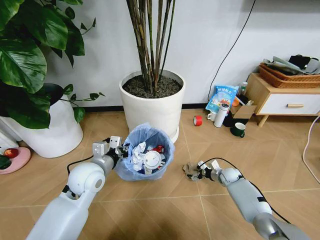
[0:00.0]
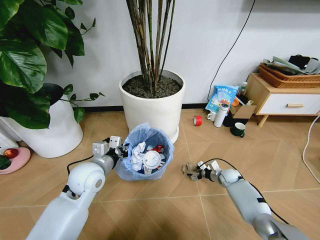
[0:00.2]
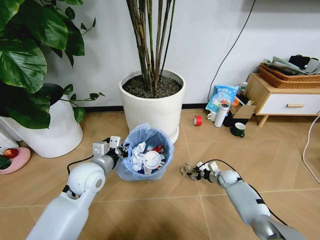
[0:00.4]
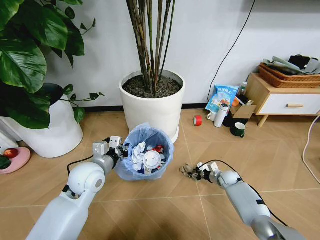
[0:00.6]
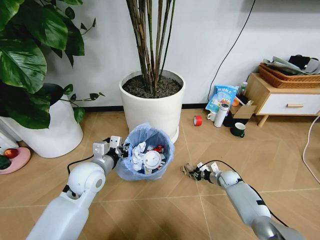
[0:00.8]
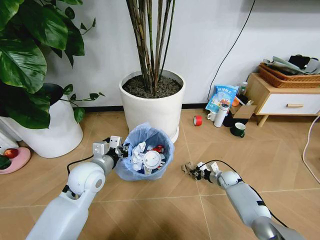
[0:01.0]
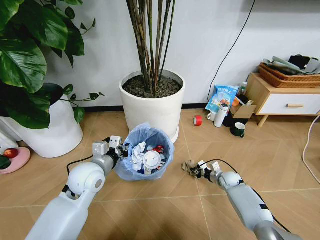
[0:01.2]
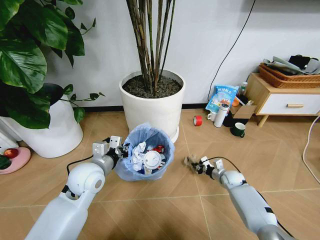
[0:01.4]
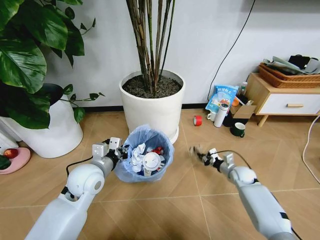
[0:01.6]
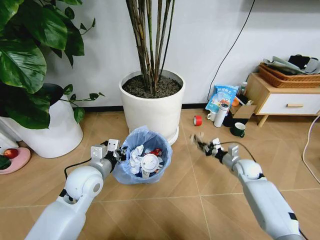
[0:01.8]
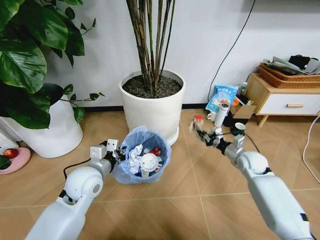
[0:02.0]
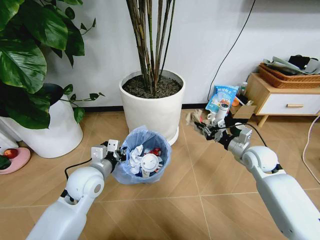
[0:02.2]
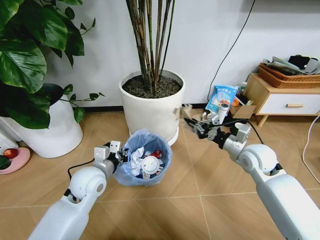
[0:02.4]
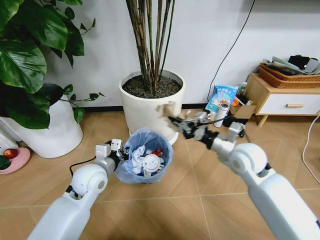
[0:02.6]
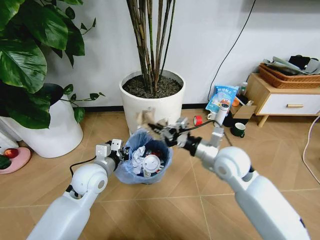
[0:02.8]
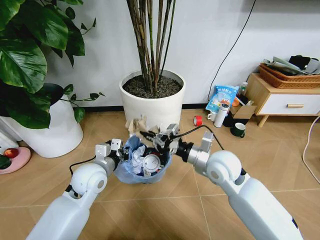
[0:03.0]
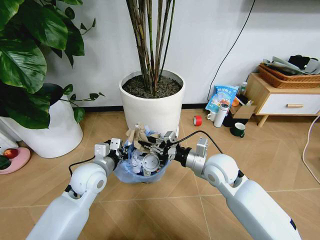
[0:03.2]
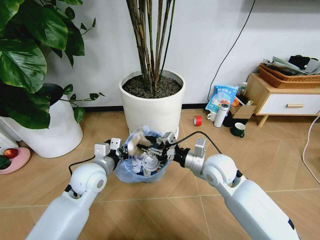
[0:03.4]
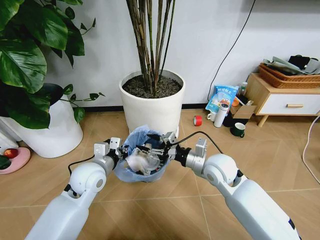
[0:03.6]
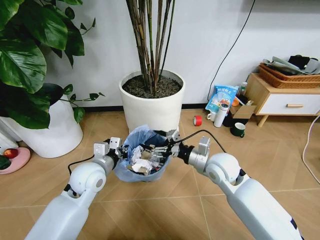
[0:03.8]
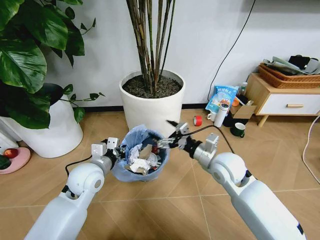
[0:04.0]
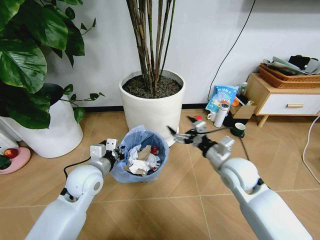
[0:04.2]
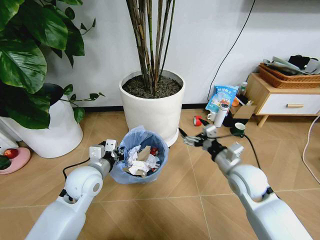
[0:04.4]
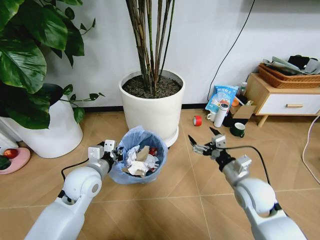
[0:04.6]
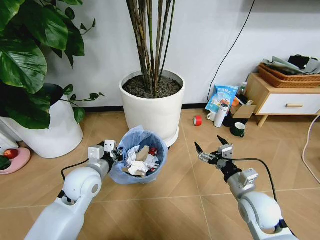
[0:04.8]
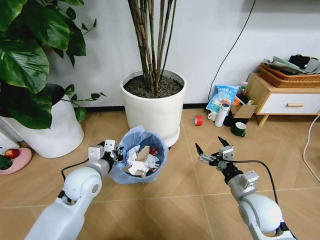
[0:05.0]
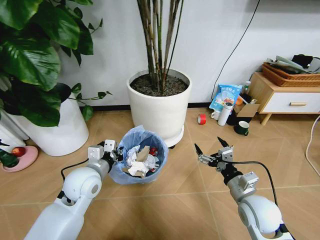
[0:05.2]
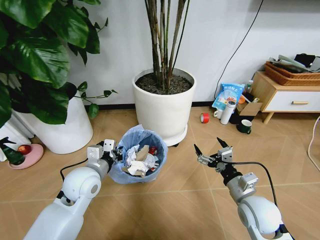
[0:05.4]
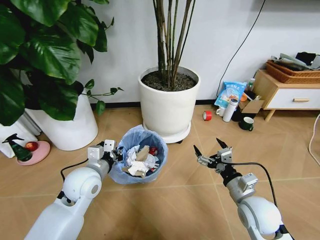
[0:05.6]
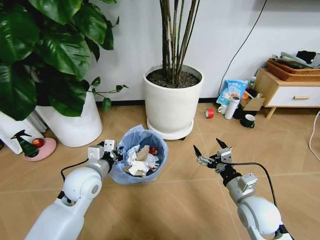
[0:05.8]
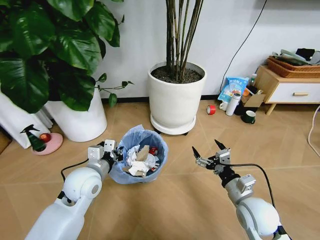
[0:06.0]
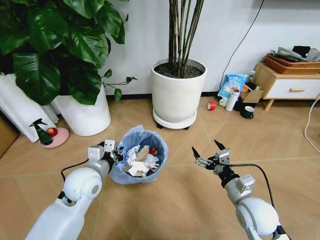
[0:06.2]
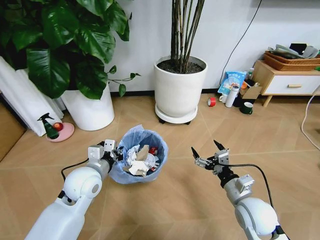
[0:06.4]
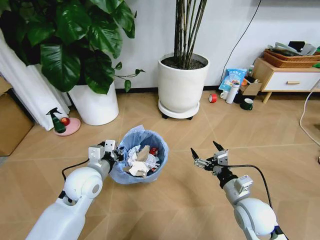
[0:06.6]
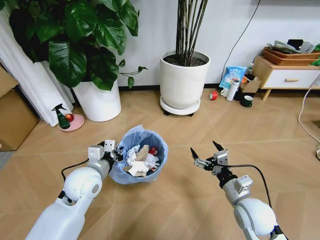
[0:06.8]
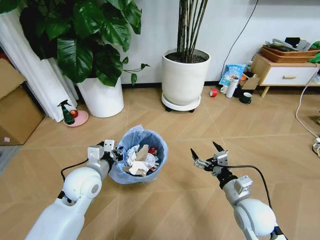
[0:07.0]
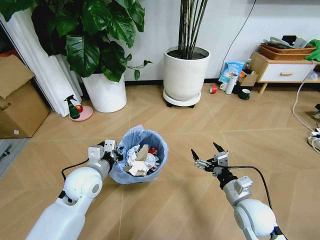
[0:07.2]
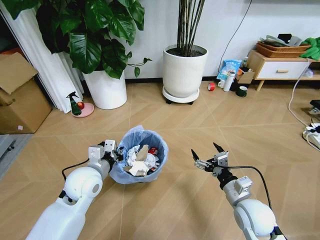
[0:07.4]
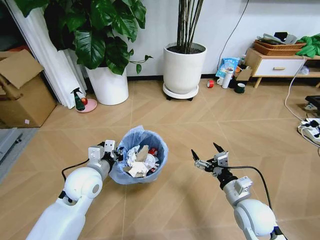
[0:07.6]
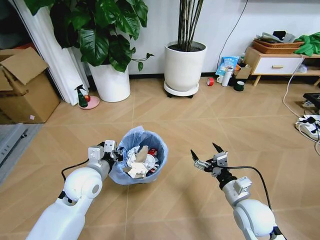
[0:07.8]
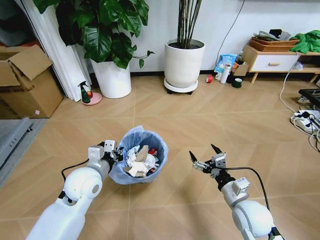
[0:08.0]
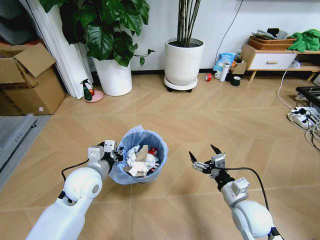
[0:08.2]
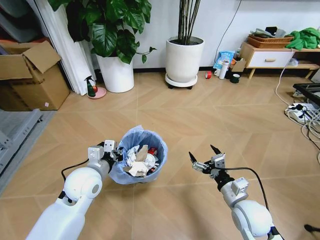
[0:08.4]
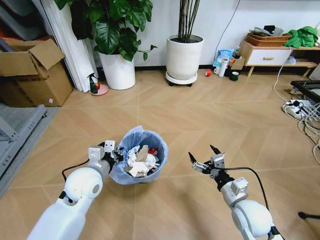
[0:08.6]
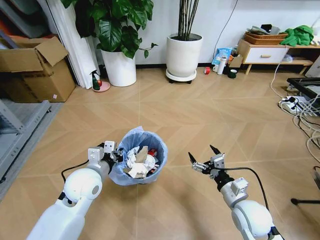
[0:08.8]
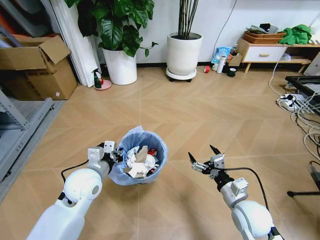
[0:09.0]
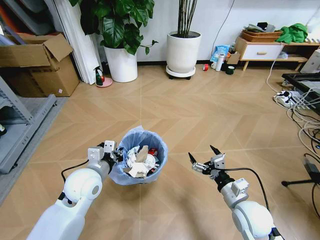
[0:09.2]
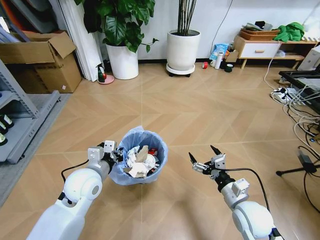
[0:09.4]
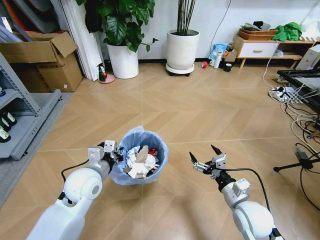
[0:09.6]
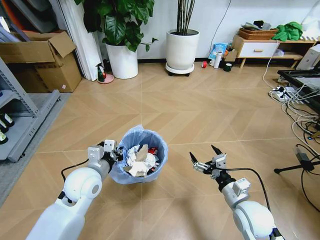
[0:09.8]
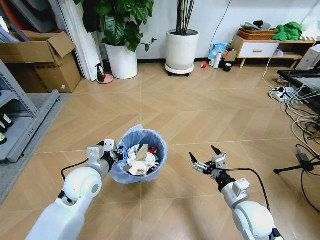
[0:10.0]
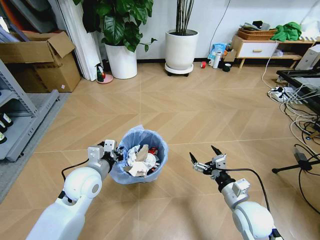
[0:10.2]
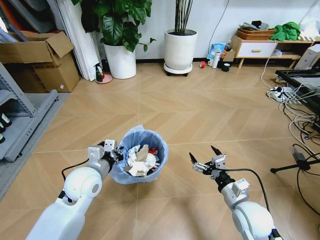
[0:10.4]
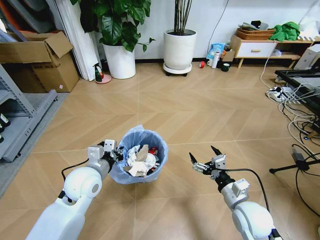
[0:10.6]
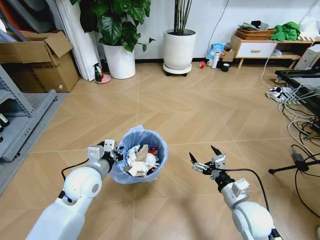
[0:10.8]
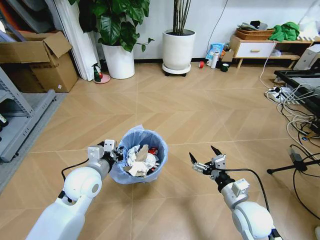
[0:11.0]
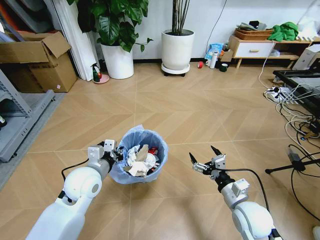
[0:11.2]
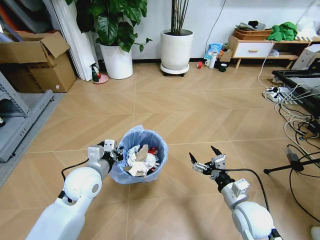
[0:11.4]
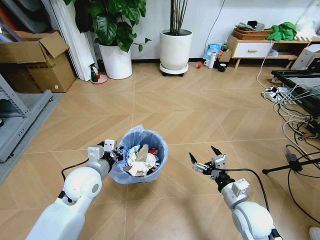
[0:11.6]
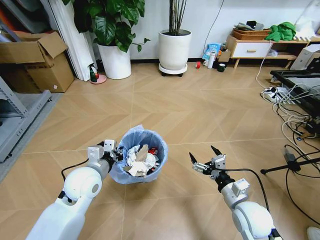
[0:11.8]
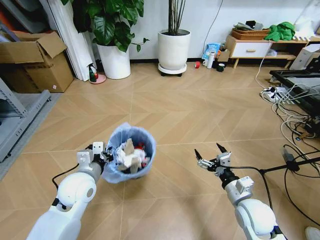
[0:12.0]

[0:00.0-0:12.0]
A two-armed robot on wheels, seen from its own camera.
Task of the whole recording: Pick up the trash bin and place the garbage on the floor into it.
0:00.0 to 0:01.6: The right gripper moves upward, some 5 cm, and closes its fingers.
0:01.6 to 0:03.0: The right gripper goes about 30 cm upward and to the left.
0:03.0 to 0:04.4: The right gripper goes approximately 10 cm to the right, and opens up.
0:04.4 to 0:06.0: The right gripper moves backward, approximately 5 cm.

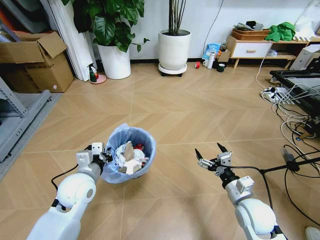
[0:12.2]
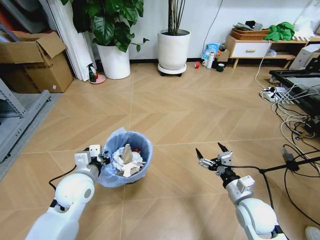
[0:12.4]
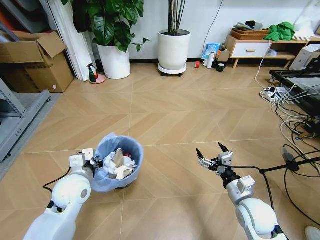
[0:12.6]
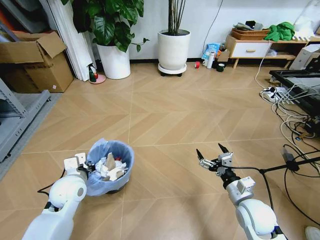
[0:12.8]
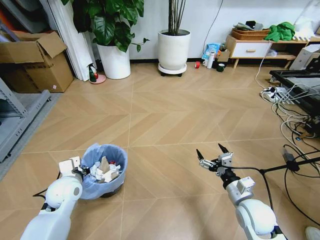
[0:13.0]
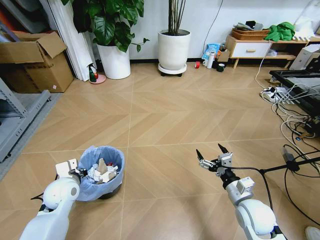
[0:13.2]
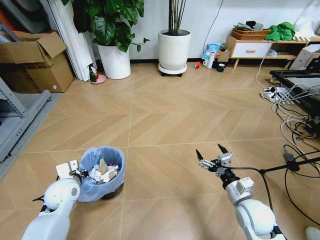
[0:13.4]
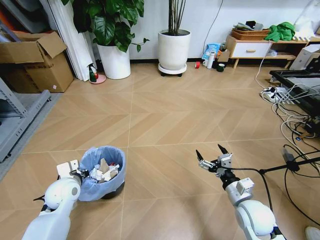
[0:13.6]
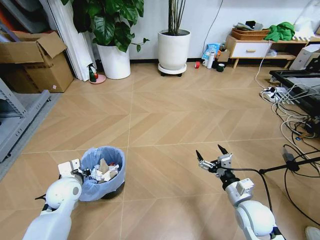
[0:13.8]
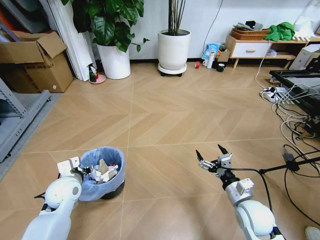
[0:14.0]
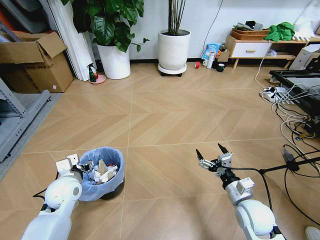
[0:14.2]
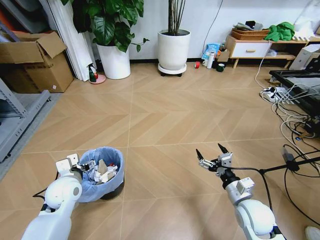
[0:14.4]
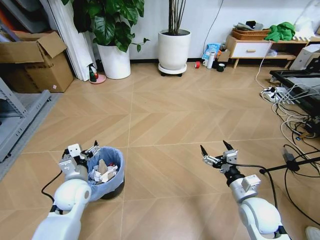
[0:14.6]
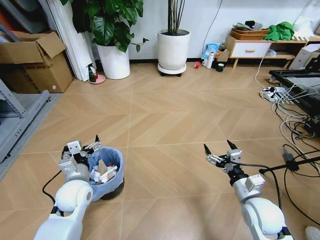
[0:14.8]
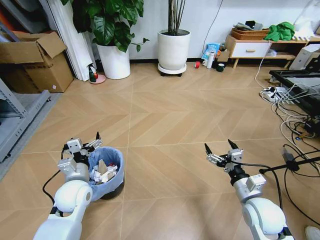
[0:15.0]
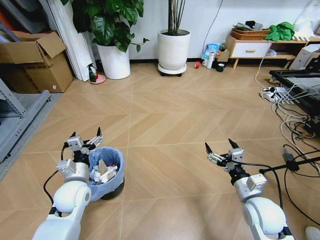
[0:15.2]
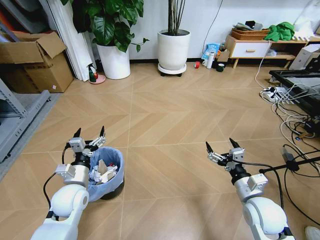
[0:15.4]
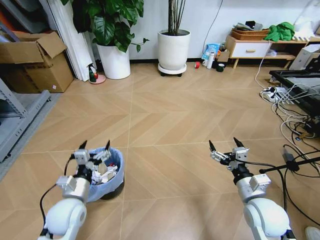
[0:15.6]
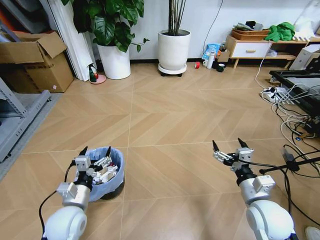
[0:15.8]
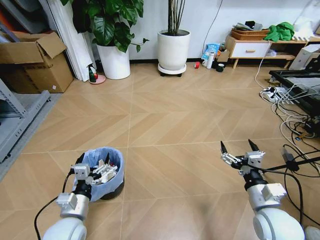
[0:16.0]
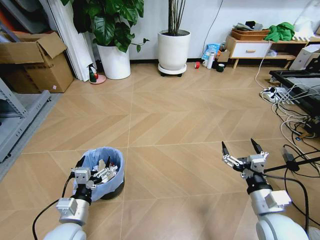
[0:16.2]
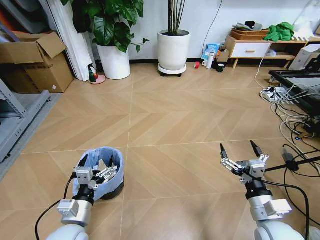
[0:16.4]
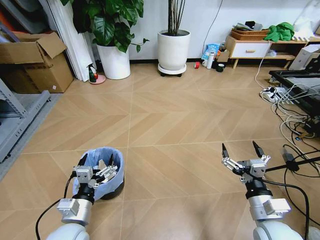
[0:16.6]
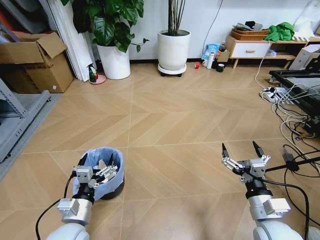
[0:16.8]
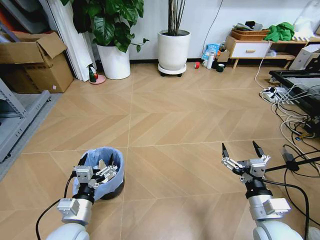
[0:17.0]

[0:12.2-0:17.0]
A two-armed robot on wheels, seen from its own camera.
Task of the whole recording: Pick up the trash bin and place the garbage on the floor into it.
0:12.2 to 0:13.8: The left gripper is displaced to the left and downward by roughly 10 cm.
0:13.8 to 0:15.4: The left gripper opens its fingers.
0:15.4 to 0:17.0: The left gripper goes about 10 cm backward. The right gripper shifts roughly 5 cm backward.
